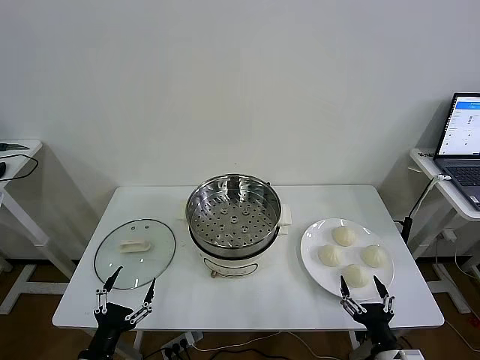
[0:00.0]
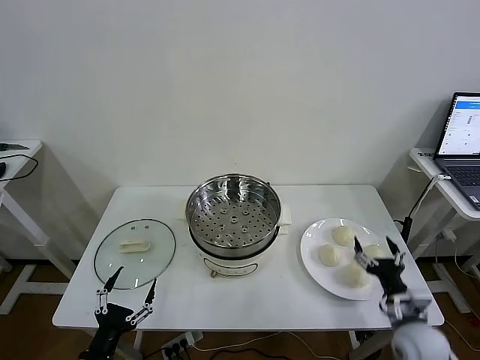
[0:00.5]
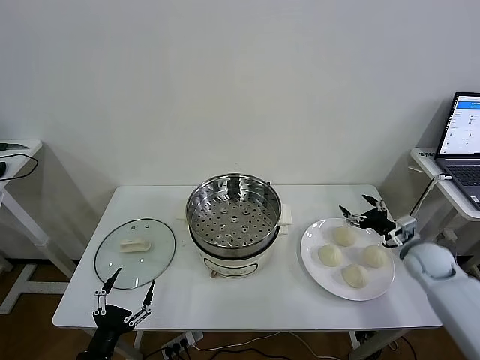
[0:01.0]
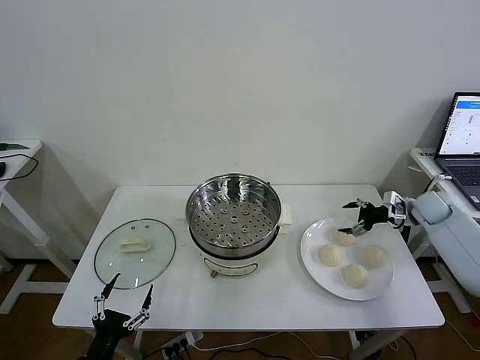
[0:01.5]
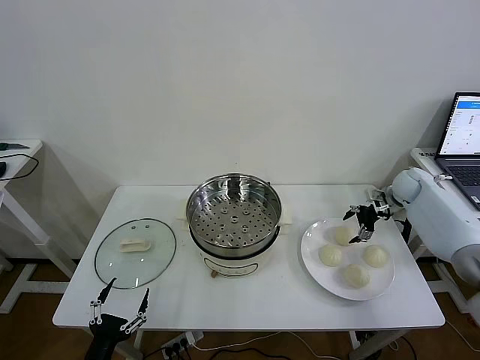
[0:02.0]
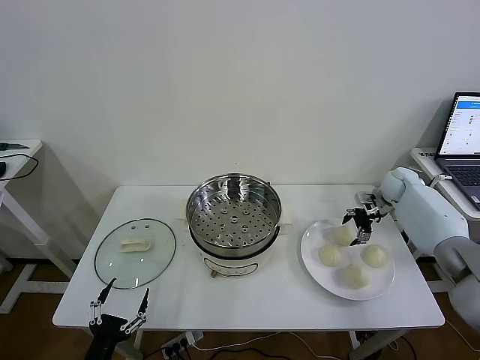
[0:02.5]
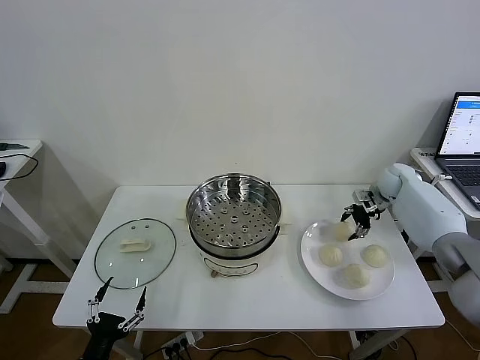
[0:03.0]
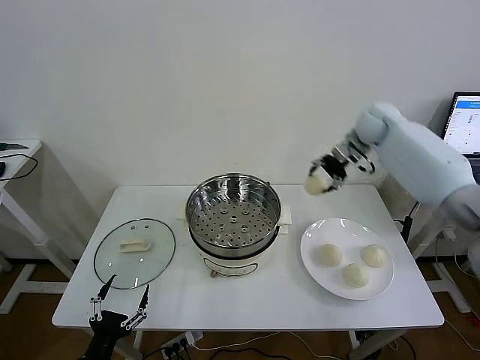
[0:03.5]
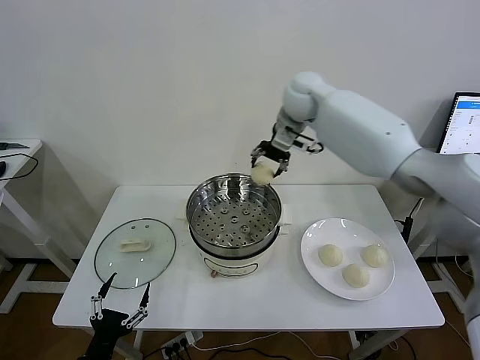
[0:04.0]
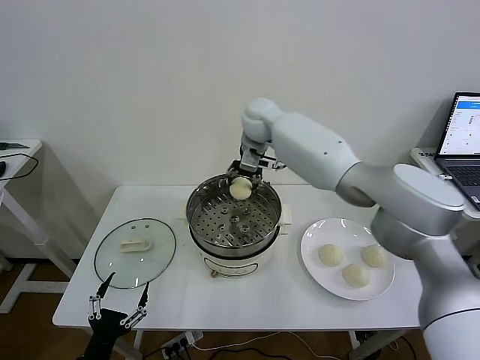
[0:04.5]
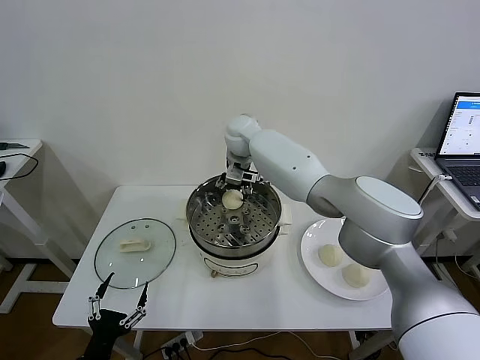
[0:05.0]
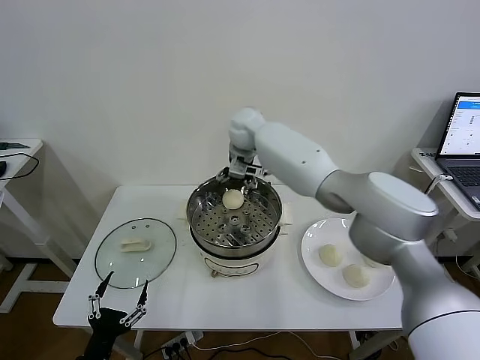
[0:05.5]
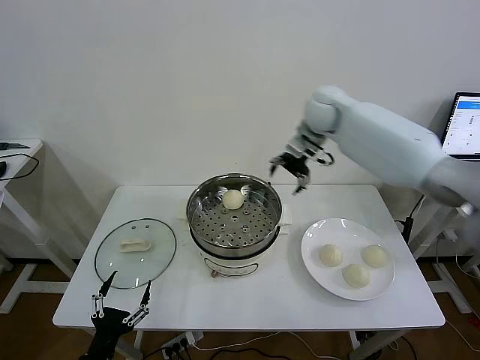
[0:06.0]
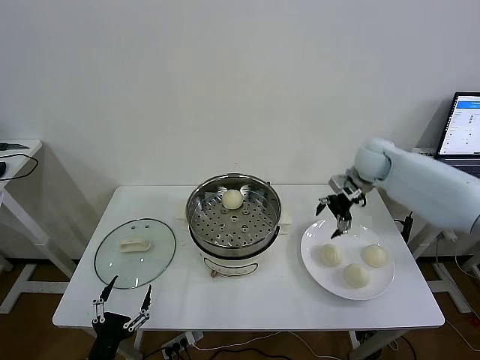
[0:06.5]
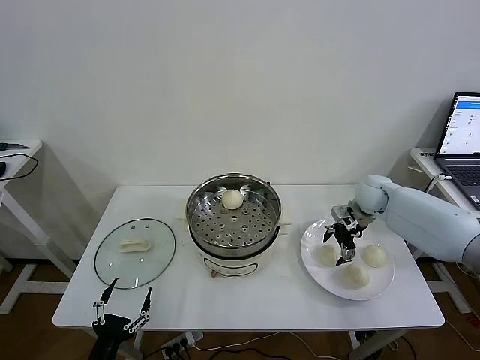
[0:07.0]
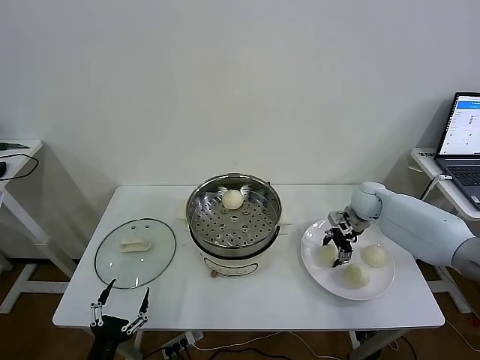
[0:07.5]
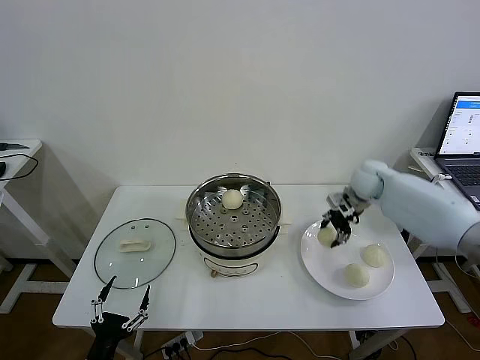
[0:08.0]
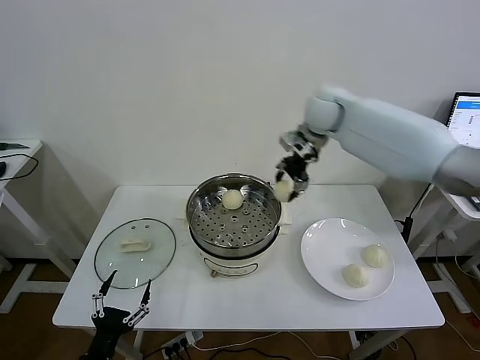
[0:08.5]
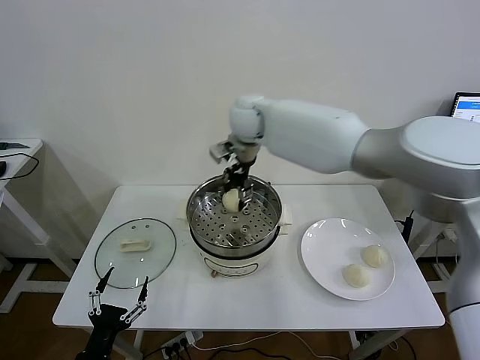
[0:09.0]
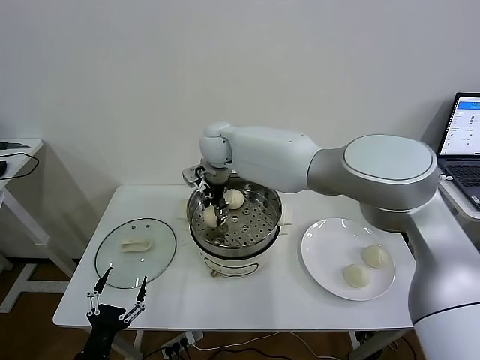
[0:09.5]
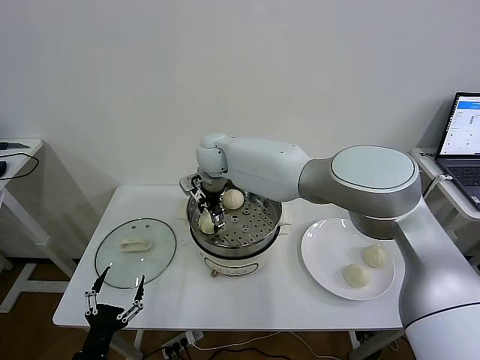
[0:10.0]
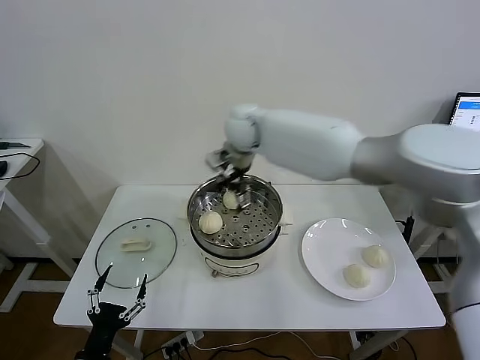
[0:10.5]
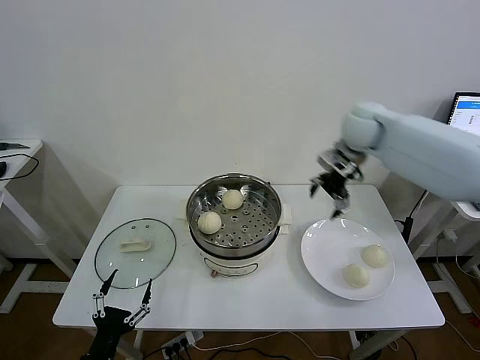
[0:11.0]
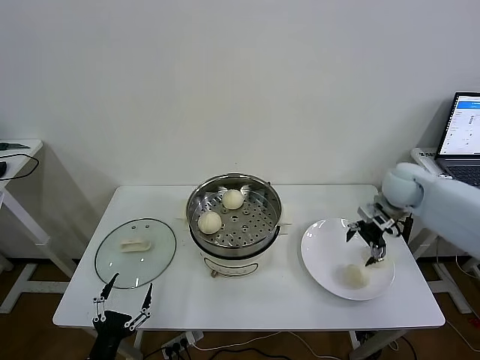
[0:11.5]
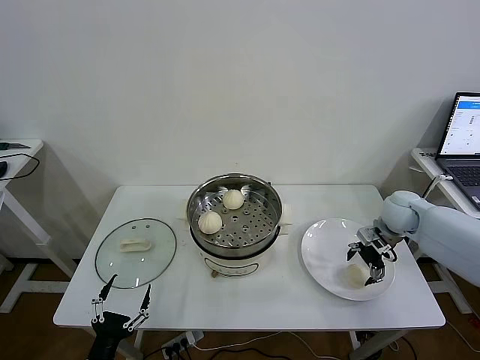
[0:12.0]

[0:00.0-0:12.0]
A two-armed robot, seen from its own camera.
Task of the whole recording: take steamed baozi put them in steamer then cover it.
Step, 0:00.0 to 0:02.5: Grasp the baozi in the plate with right gripper.
Step, 0:03.0 to 0:05.0: Place the baozi on the steamer with right gripper.
Step, 0:05.5 to 0:07.5: Grasp the baozi in the plate with right gripper.
Step, 0:08.0 to 0:10.0: Place the baozi on the steamer with right gripper.
0:02.0 to 0:04.0: The right gripper goes approximately 40 cm to the left and upward, and closes.
0:04.0 to 0:06.0: The right gripper heads to the right, covering roughly 15 cm, and opens up.
0:06.0 to 0:08.0: The right gripper heads downward and to the right, covering some 15 cm, and closes its fingers.
0:08.0 to 0:10.0: The right gripper goes approximately 40 cm to the left, and opens its fingers.
0:10.0 to 0:12.0: The right gripper travels to the right by about 50 cm.

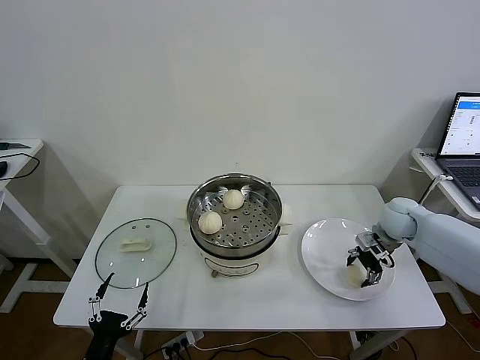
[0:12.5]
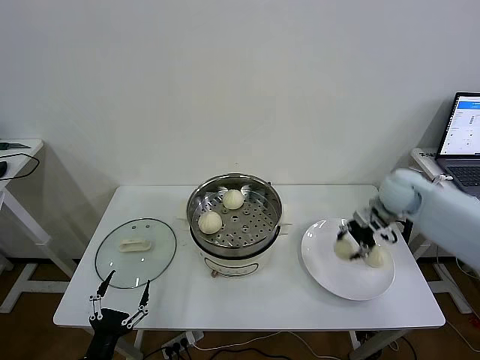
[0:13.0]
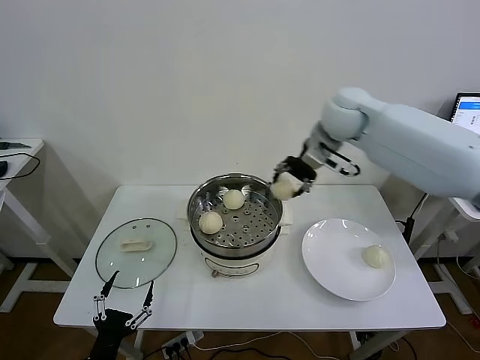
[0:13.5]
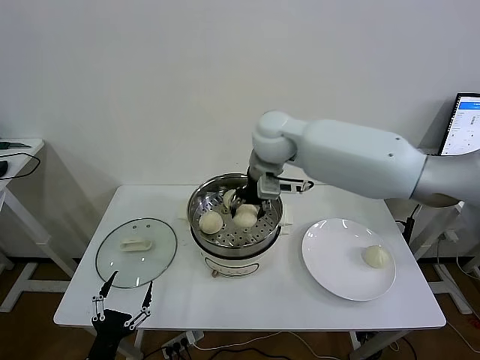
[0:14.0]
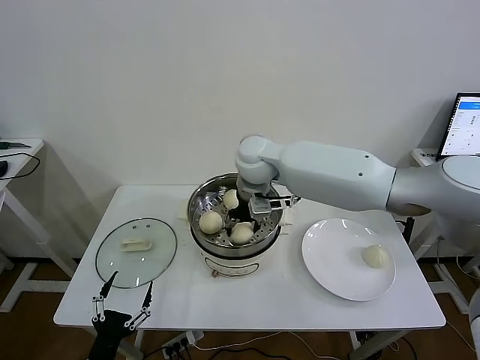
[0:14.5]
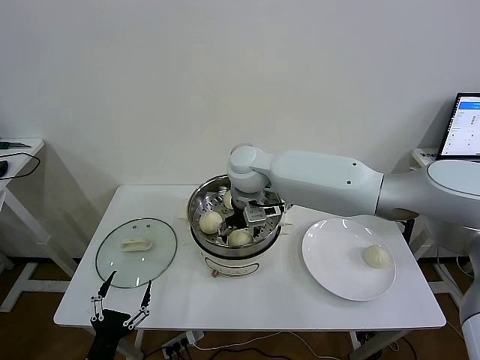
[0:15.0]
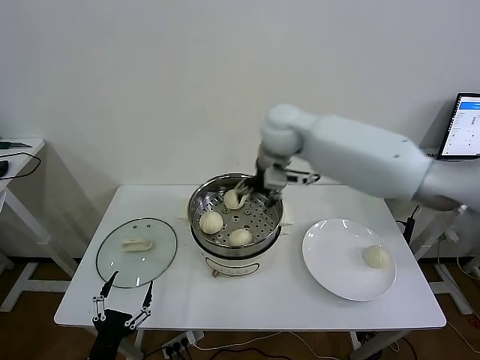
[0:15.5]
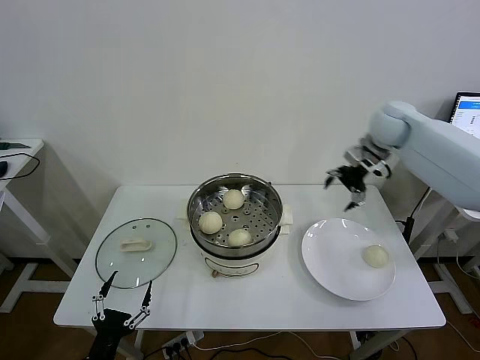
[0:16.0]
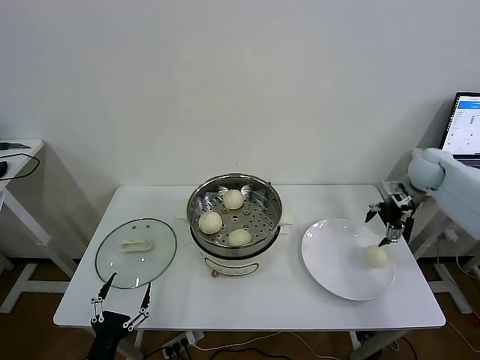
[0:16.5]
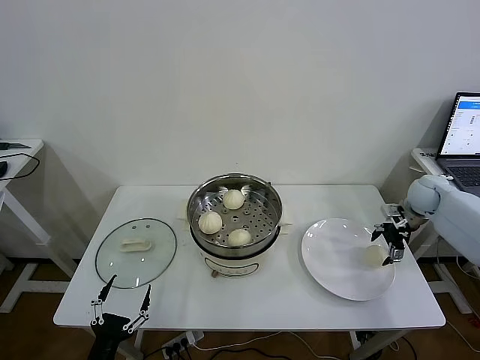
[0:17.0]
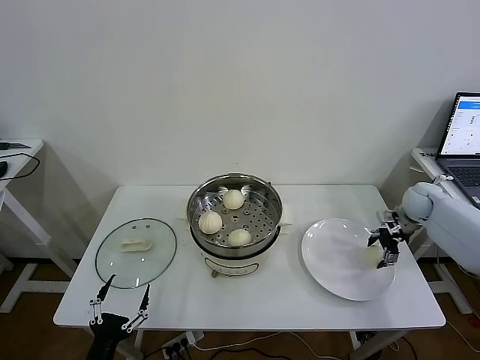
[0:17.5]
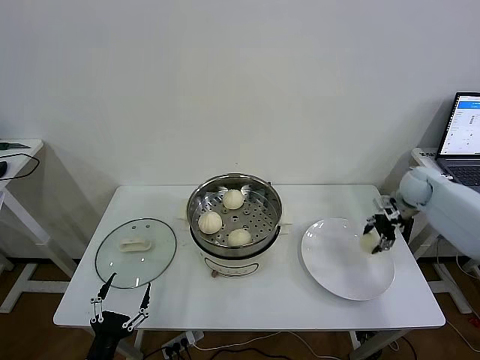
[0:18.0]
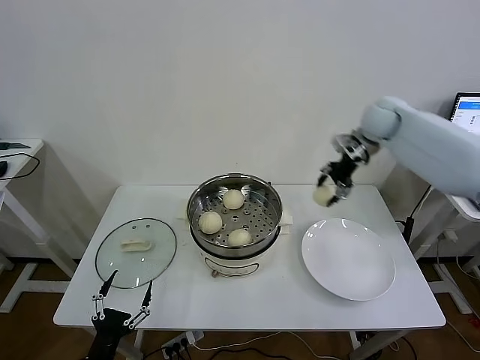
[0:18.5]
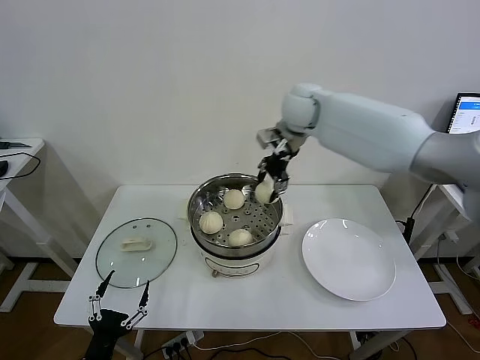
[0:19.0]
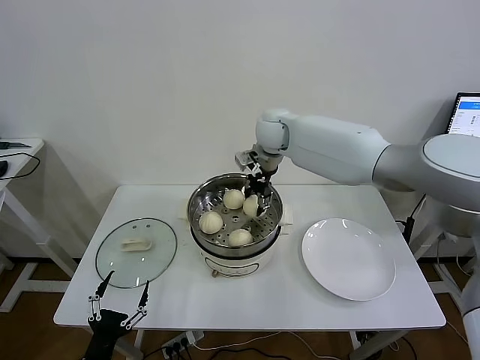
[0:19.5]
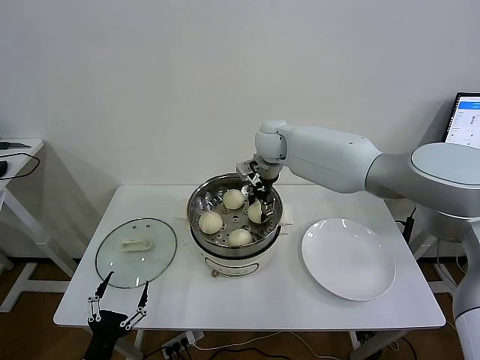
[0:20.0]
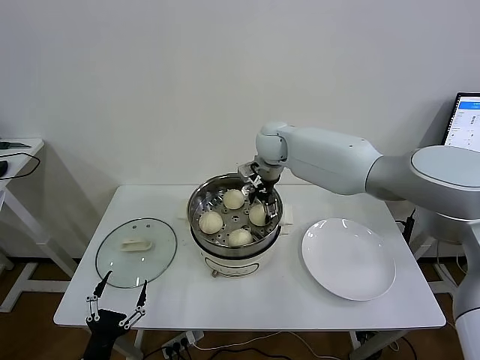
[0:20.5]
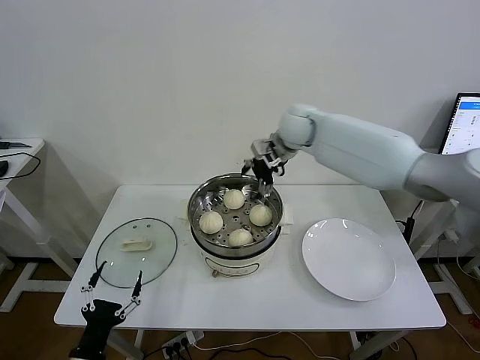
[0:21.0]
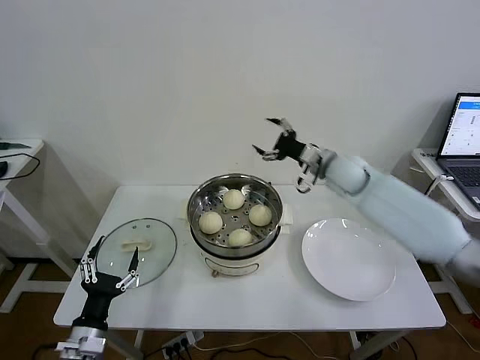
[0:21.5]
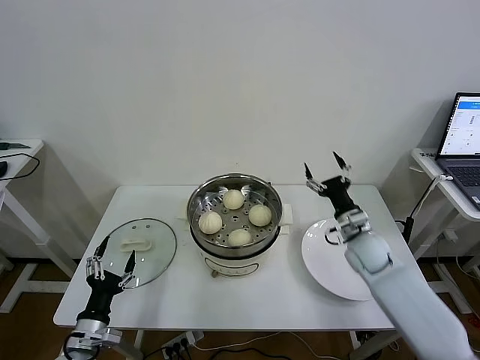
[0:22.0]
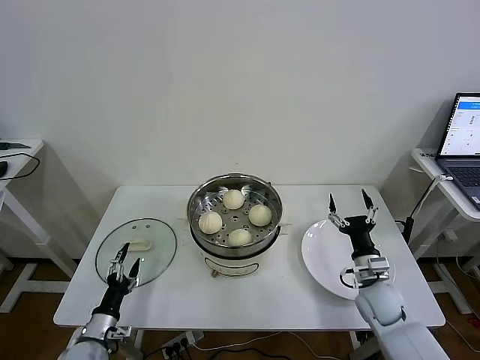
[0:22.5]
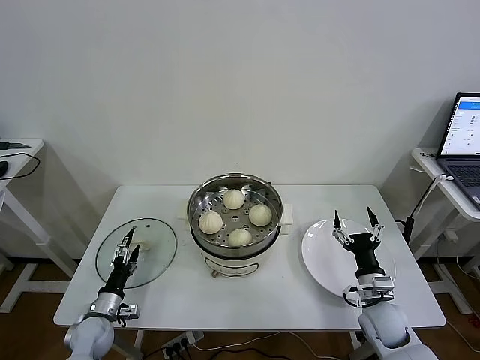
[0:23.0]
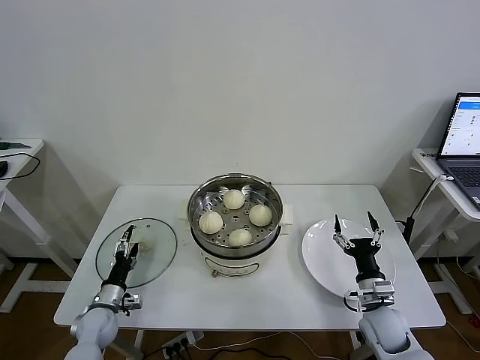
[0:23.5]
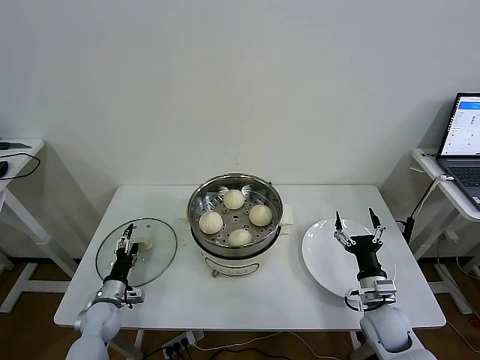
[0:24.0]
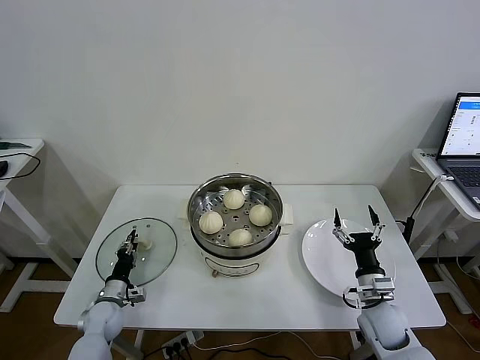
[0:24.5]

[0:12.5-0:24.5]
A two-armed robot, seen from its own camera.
Task of the whole recording: take steamed baozi put them in steamer then cover it.
Step, 0:13.0 to 0:15.0: Place the baozi on the steamer with right gripper.
Step, 0:15.5 to 0:17.5: Grasp the baozi in the plate with right gripper.
Step, 0:18.0 to 0:20.5: Place the baozi on the steamer with right gripper.
0:12.5 to 0:14.5: The right gripper goes approximately 40 cm to the left and upward.
0:14.5 to 0:16.5: The right gripper heads to the right, covering about 40 cm, and opens up.
0:16.5 to 0:18.5: The right gripper travels to the left and upward by some 20 cm, and closes up.
0:18.5 to 0:20.5: The right gripper moves to the left, some 20 cm, and opens its fingers.
0:20.5 to 0:22.5: The right gripper travels backward, downward and to the right by some 50 cm, while the left gripper travels forward and downward by approximately 15 cm.
0:22.5 to 0:24.5: The left gripper heads forward, covering some 10 cm, and closes its fingers.

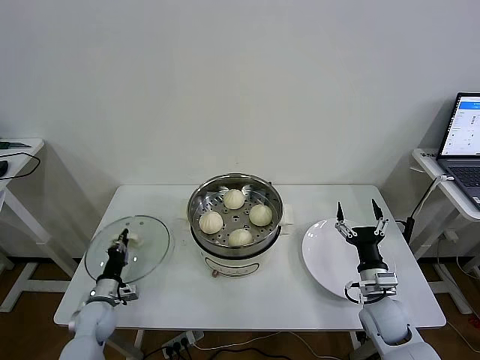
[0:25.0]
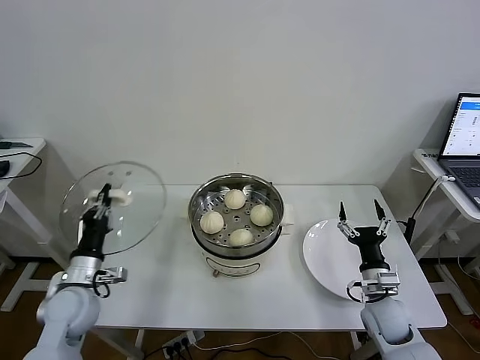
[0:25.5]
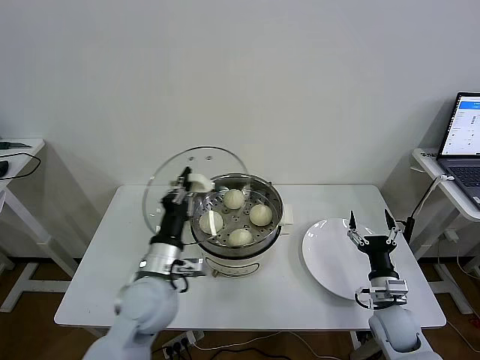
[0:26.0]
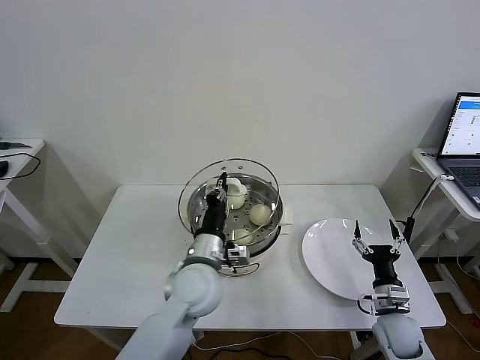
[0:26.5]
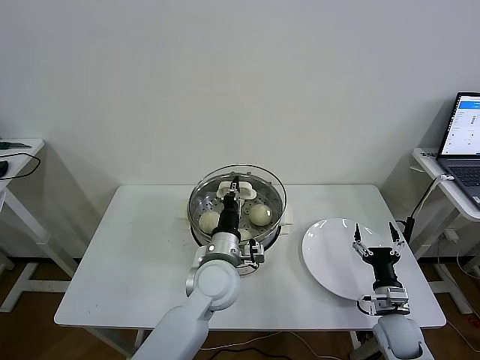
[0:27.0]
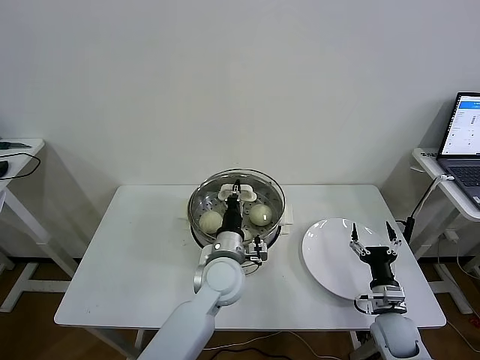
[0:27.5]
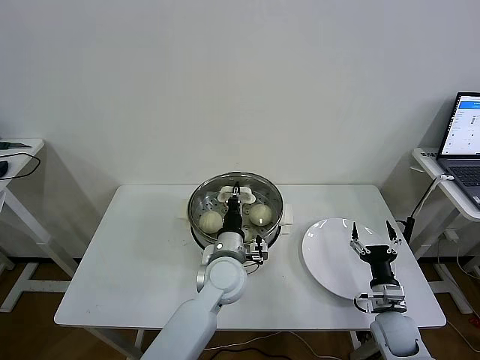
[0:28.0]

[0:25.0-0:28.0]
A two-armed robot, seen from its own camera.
Task of the whole recording: take steamed baozi put them in steamer then cover it.
0:25.0 to 0:26.5: The right gripper ends up some 5 cm from where it was. The left gripper moves to the right and upward, some 35 cm.
0:26.5 to 0:28.0: The left gripper goes about 5 cm to the right.
